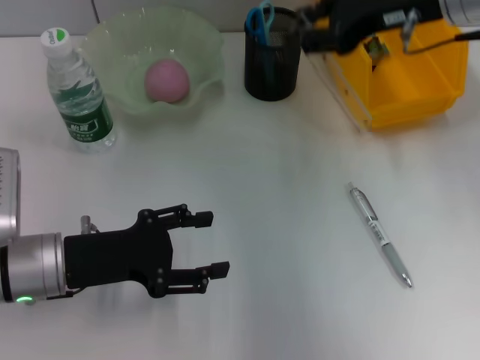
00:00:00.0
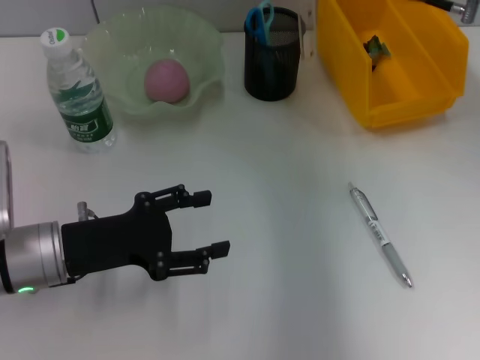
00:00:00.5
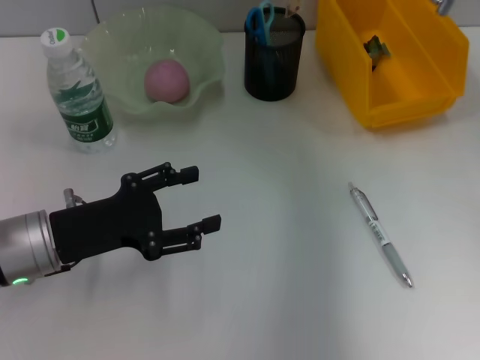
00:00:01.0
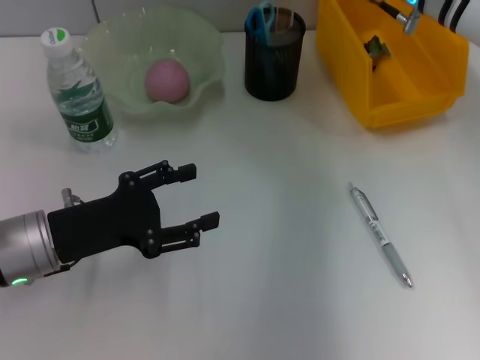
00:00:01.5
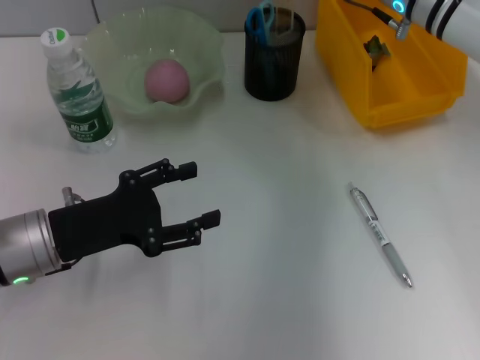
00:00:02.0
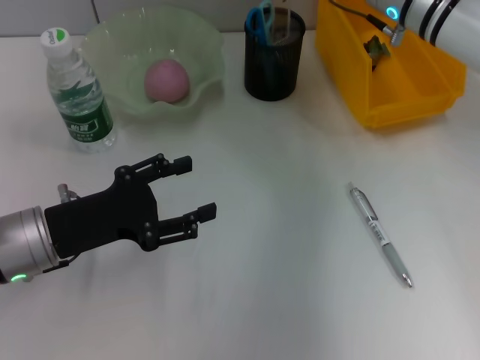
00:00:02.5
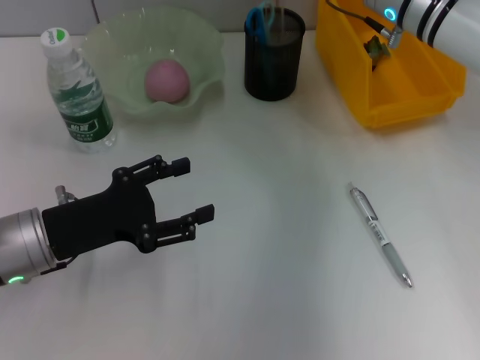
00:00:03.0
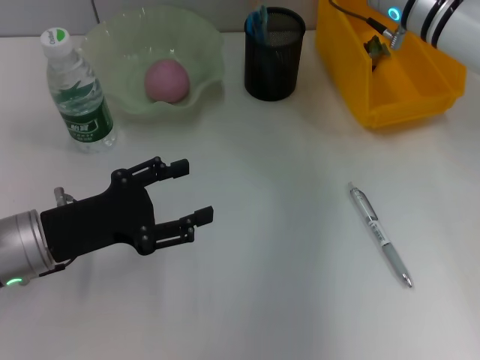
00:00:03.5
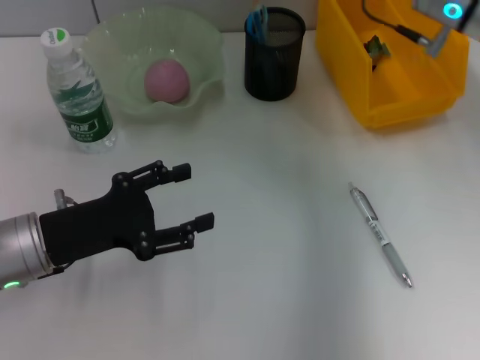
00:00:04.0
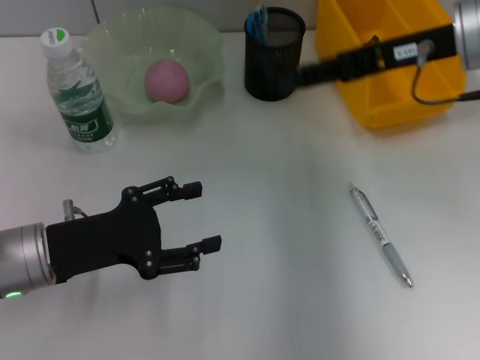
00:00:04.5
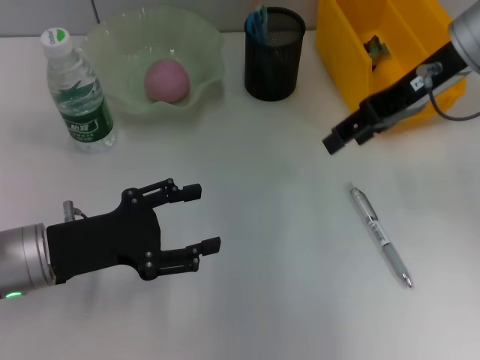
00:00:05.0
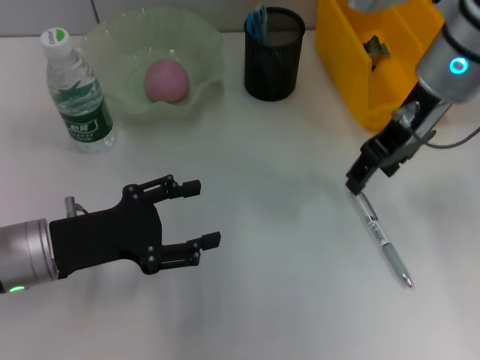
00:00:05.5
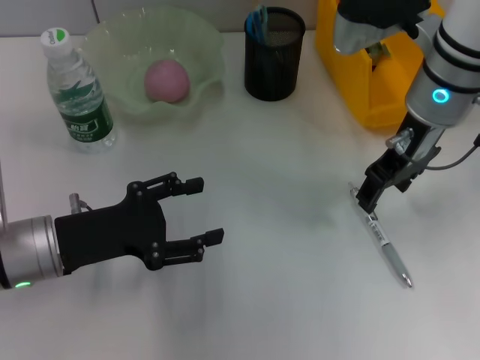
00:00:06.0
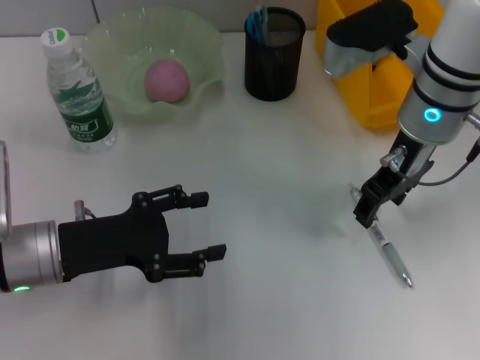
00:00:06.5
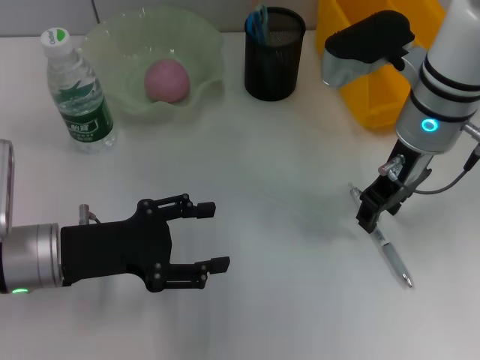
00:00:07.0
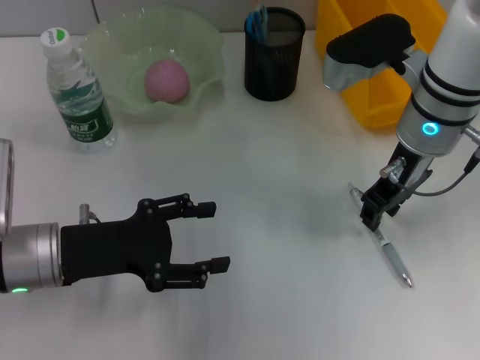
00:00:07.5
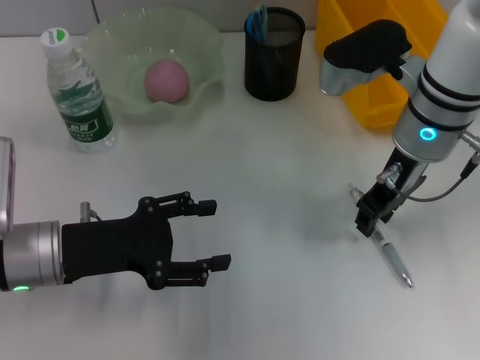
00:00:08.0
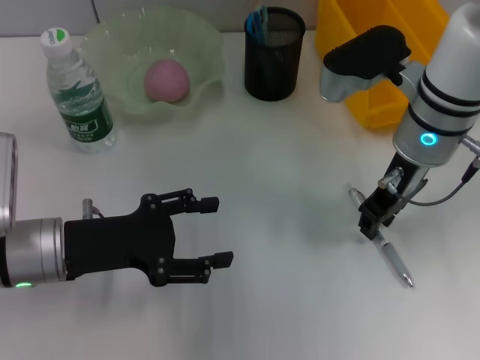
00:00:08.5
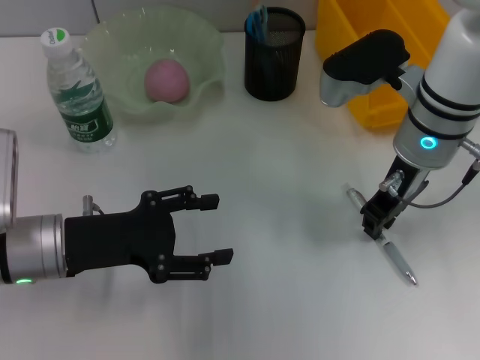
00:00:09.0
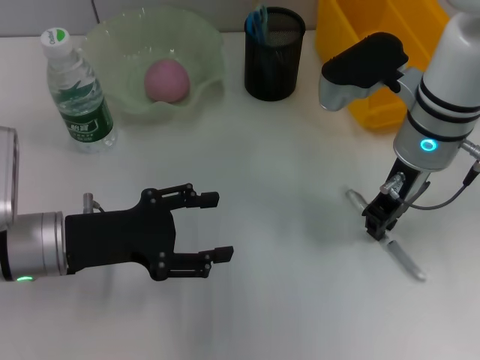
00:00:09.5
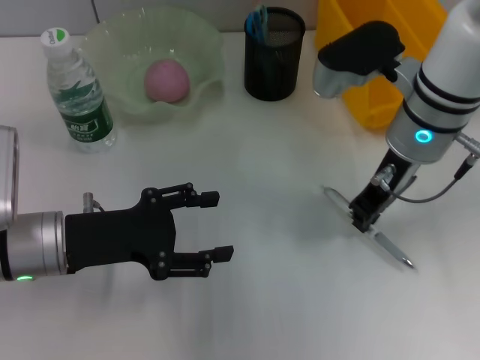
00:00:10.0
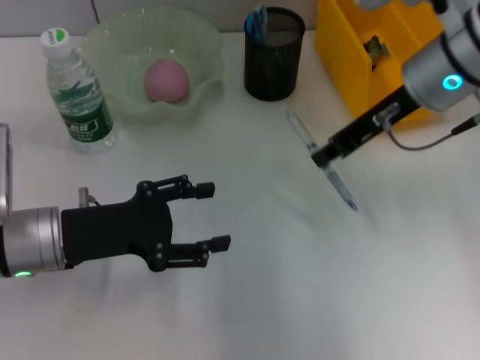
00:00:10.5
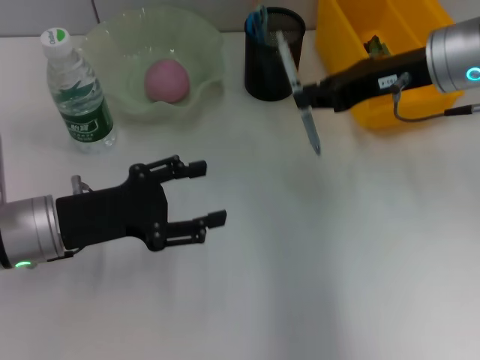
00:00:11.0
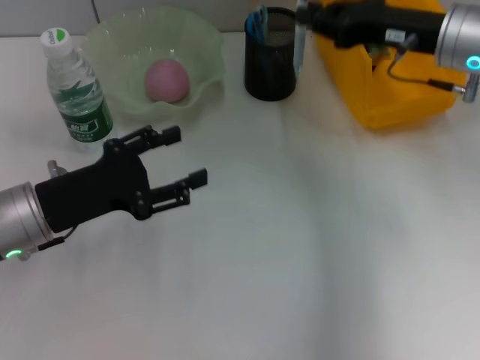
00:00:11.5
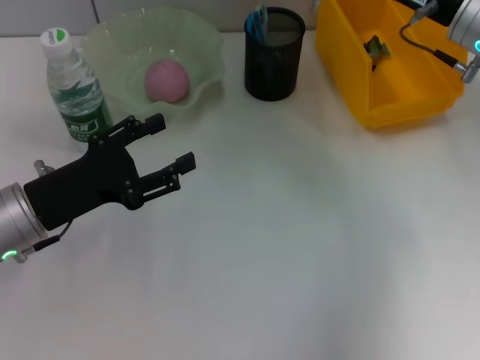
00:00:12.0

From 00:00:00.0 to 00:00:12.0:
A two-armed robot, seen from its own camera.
Step, from 00:00:00.0 to 00:00:03.0: Place the ruler into the pen holder with the right hand.
Step, from 00:00:03.5 to 00:00:09.5: Grab the gray spring-action pen with the right hand.
From 00:00:00.0 to 00:00:02.0: The right gripper shifts about 10 cm downward and forward.
From 00:00:02.0 to 00:00:04.0: The right gripper ends up some 5 cm from where it was.
From 00:00:06.0 to 00:00:08.0: The right gripper closes.
From 00:00:08.0 to 00:00:10.0: Neither gripper changes place.
From 00:00:10.0 to 00:00:12.0: The right gripper travels to the right by roughly 10 cm.

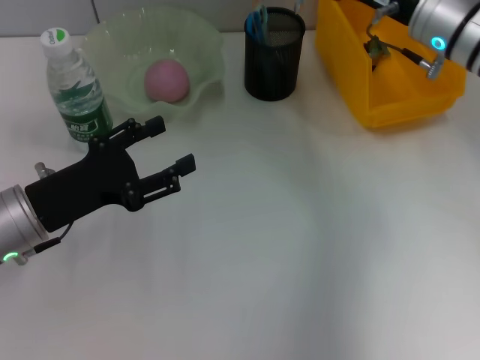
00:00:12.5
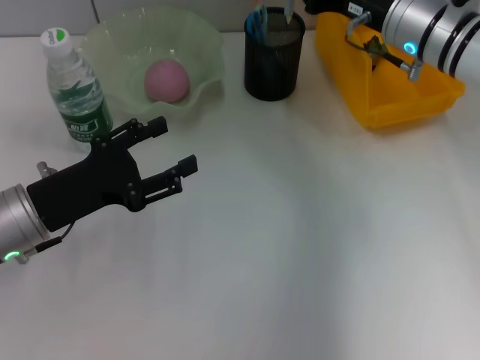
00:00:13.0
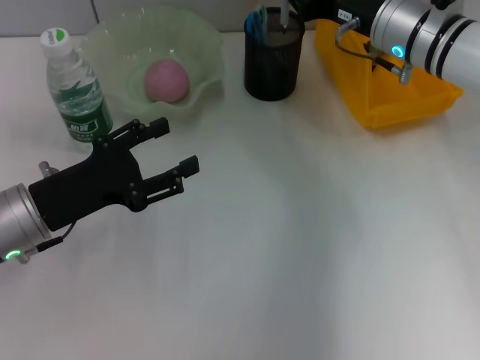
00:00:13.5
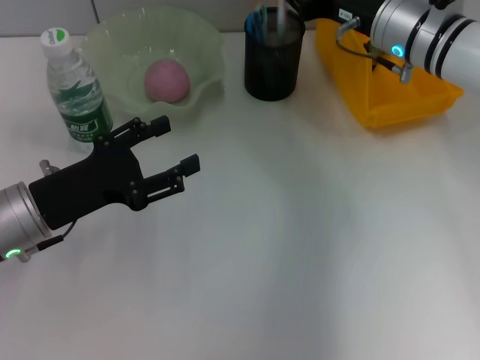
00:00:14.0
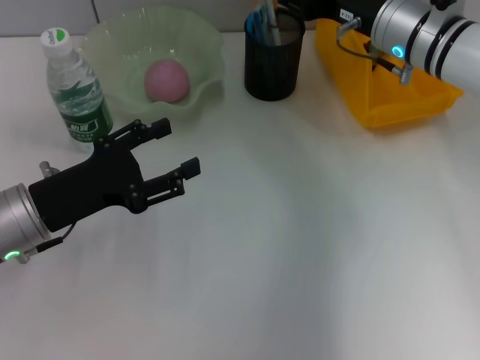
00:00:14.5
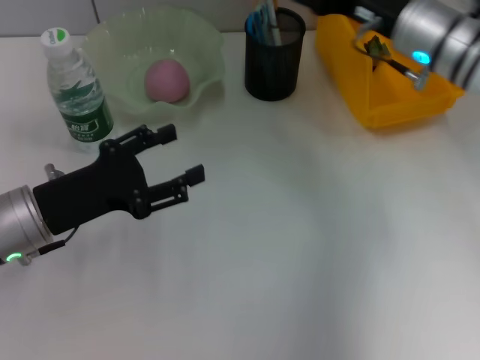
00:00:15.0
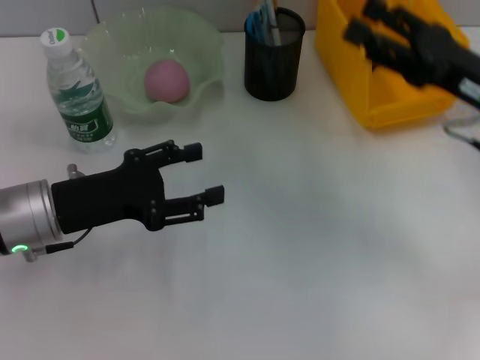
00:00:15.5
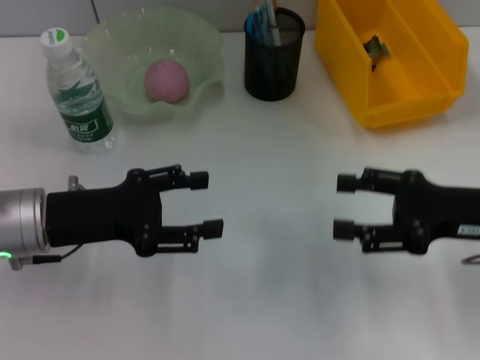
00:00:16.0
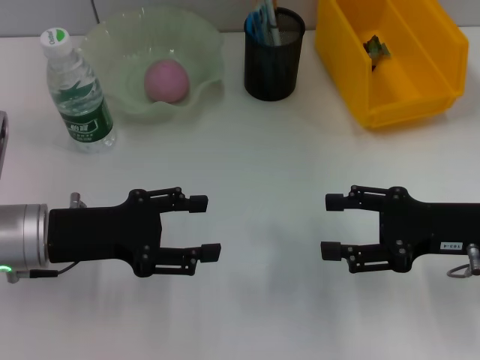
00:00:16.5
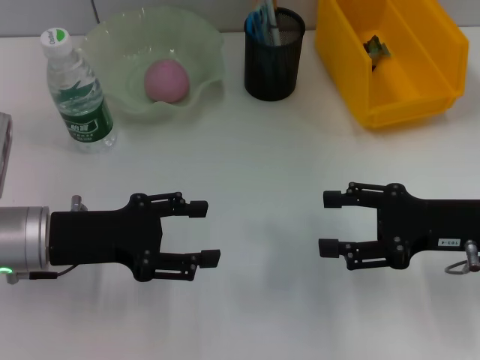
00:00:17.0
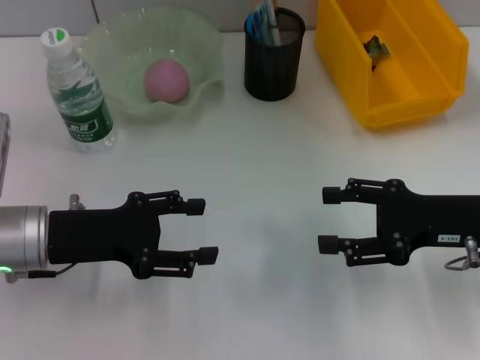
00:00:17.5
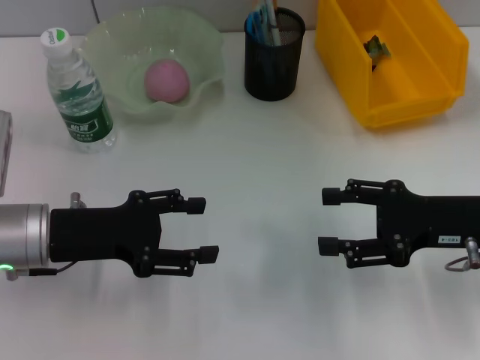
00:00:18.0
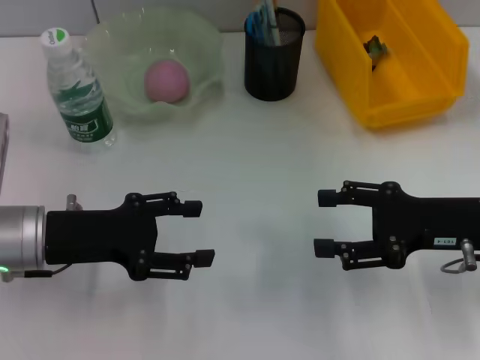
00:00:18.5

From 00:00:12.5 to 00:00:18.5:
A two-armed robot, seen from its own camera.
From 00:00:12.5 to 00:00:14.5: The right gripper opens up.
From 00:00:14.5 to 00:00:16.5: The right gripper moves backward and to the right, roughly 20 cm, and opens its fingers.
From 00:00:16.5 to 00:00:18.5: Neither gripper changes place.

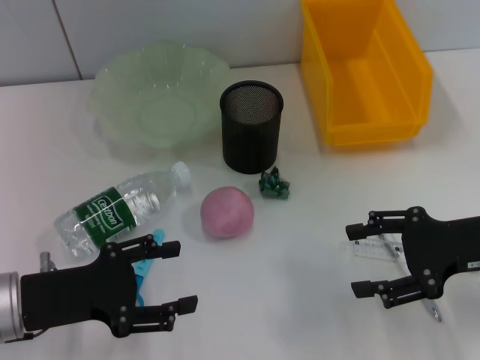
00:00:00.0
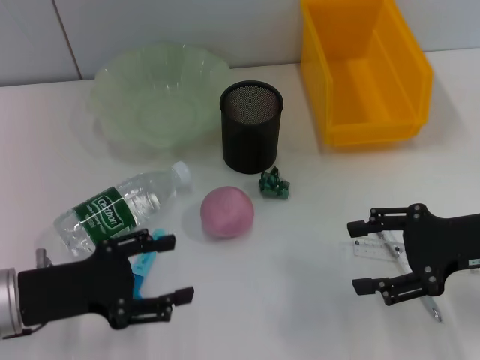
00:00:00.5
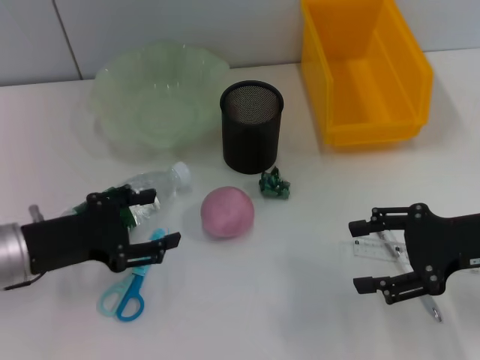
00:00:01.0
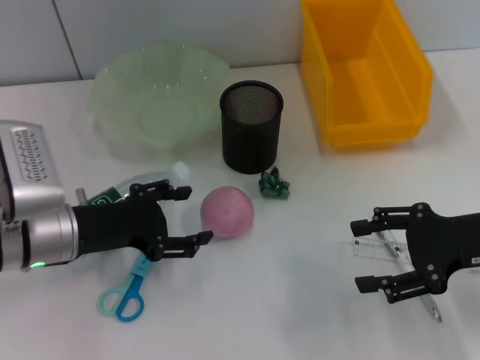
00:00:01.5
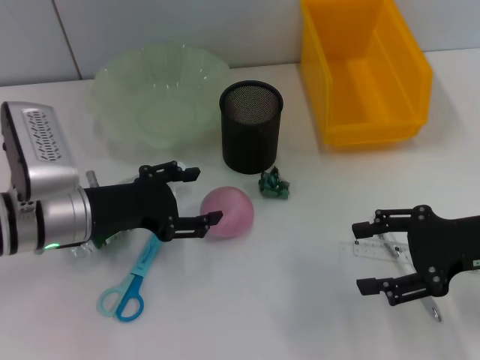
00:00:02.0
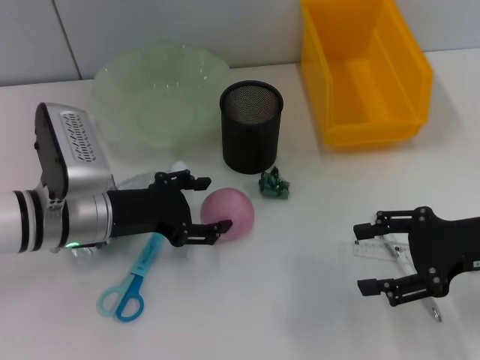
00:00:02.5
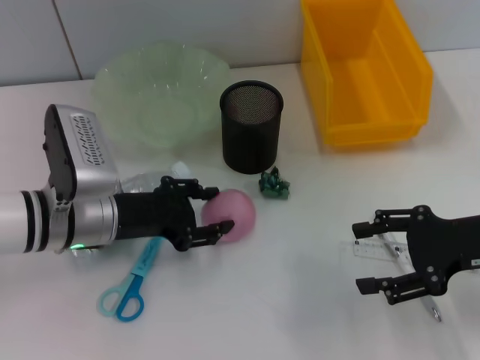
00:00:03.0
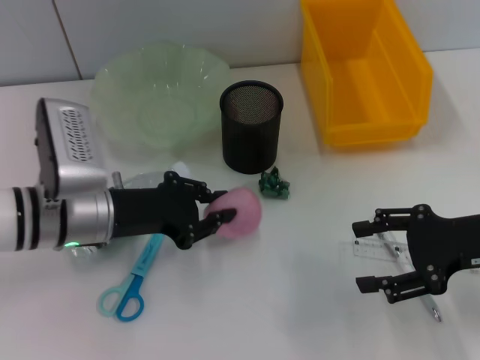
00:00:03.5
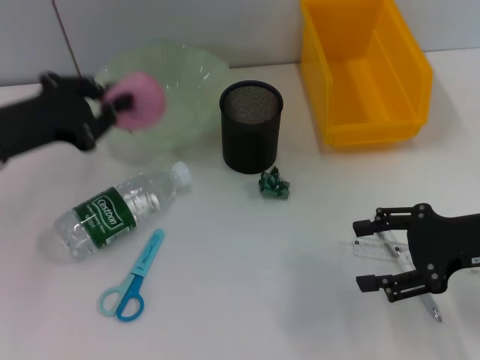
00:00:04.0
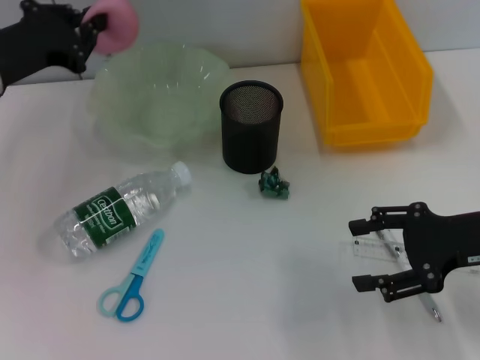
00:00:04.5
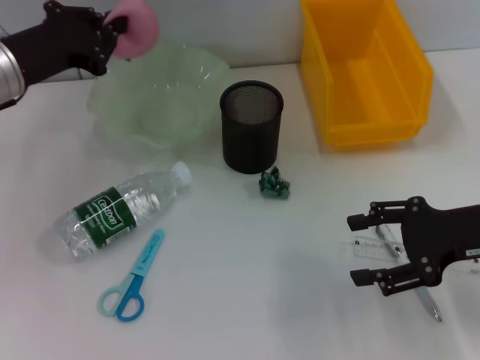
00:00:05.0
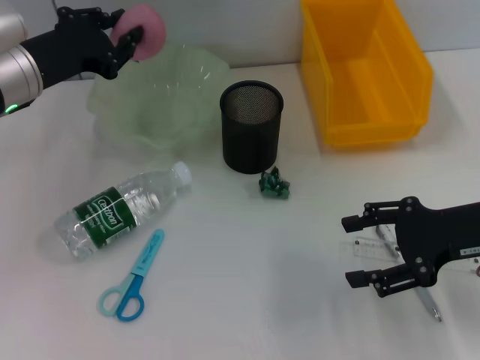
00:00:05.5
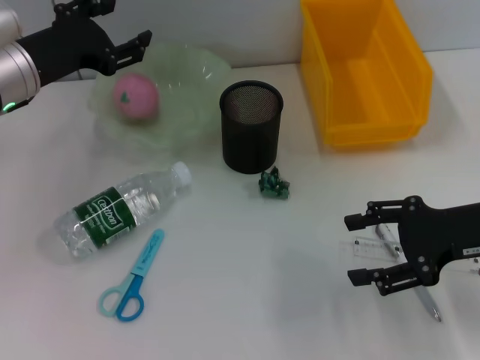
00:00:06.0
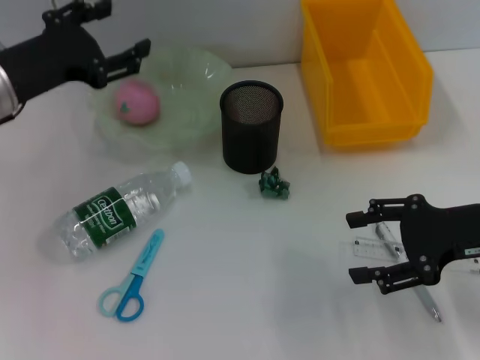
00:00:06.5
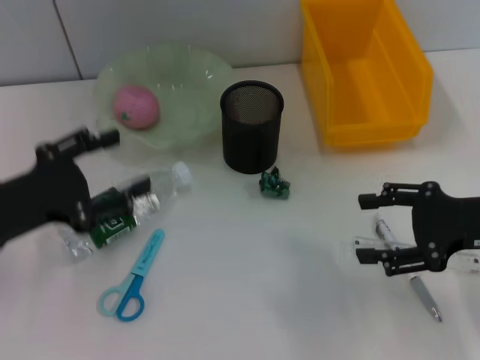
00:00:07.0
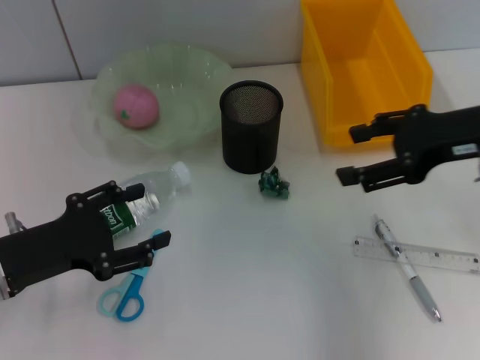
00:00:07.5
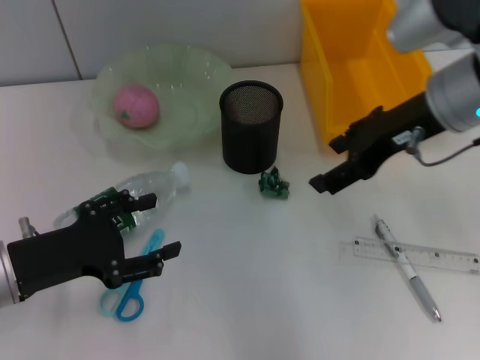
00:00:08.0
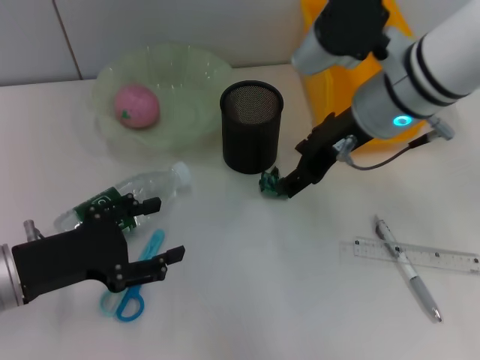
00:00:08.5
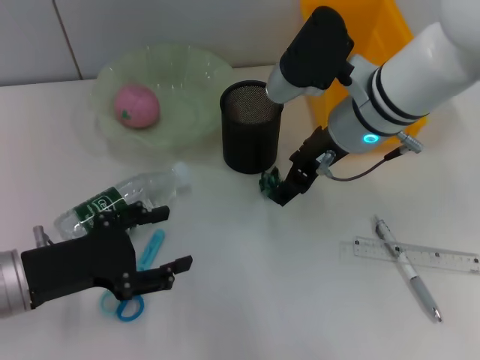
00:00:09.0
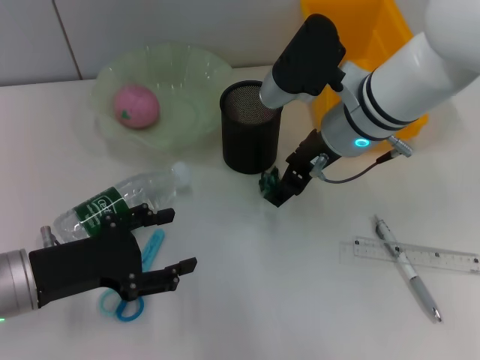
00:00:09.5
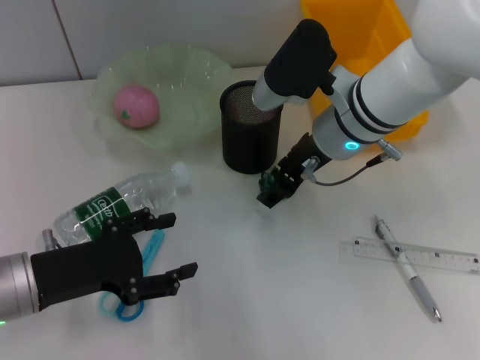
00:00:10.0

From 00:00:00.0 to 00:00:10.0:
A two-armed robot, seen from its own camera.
Step, from 00:00:00.0 to 00:00:03.0: Grab the peach with the left hand.
Step, from 00:00:03.5 to 00:00:05.5: Place the peach into the fruit bowl with the left hand.
From 00:00:00.0 to 00:00:02.0: The left gripper is displaced forward and to the right by about 10 cm.
From 00:00:02.0 to 00:00:04.0: The left gripper travels upward and to the left by about 10 cm, and closes.
From 00:00:04.0 to 00:00:06.0: The left gripper is displaced forward by approximately 5 cm, and opens.
From 00:00:06.0 to 00:00:08.0: The right gripper shifts some 15 cm upward, to the left and forward, while the left gripper is displaced backward and downward by roughly 15 cm.
From 00:00:08.0 to 00:00:10.0: The right gripper is displaced to the left and downward by roughly 10 cm.
